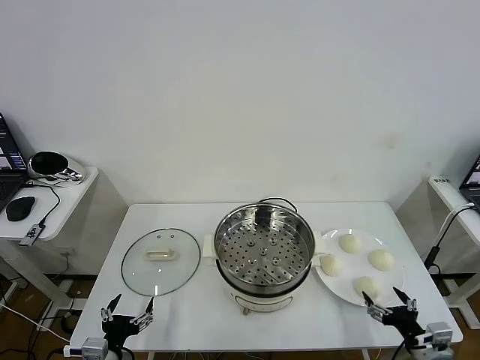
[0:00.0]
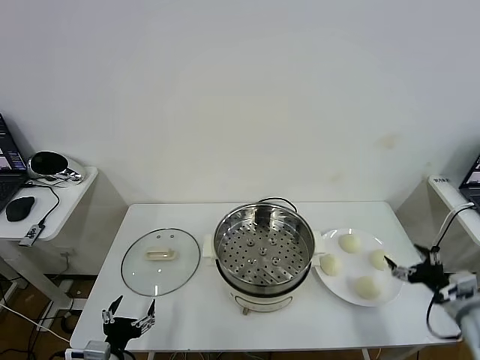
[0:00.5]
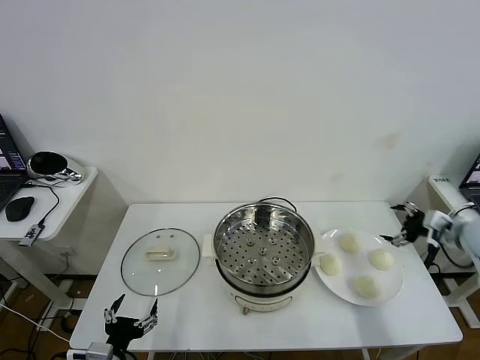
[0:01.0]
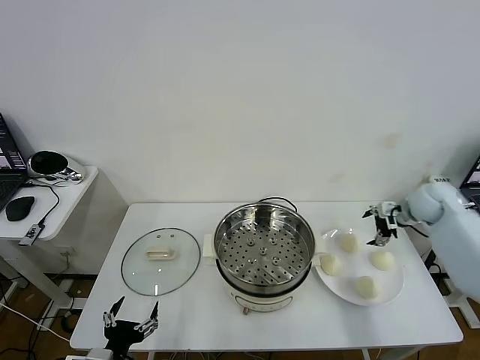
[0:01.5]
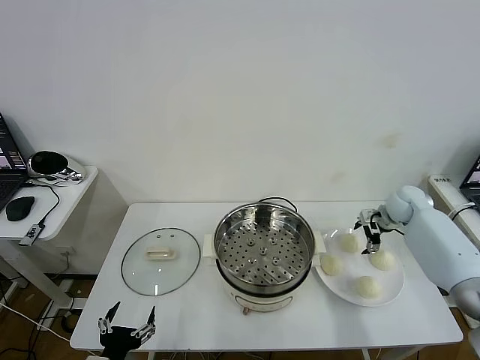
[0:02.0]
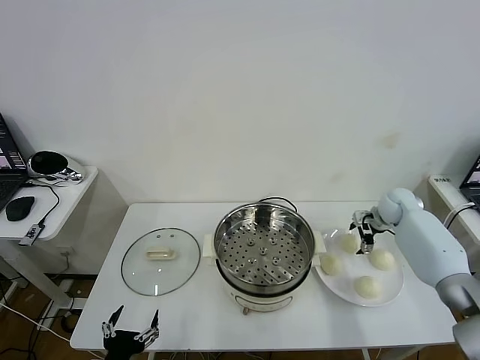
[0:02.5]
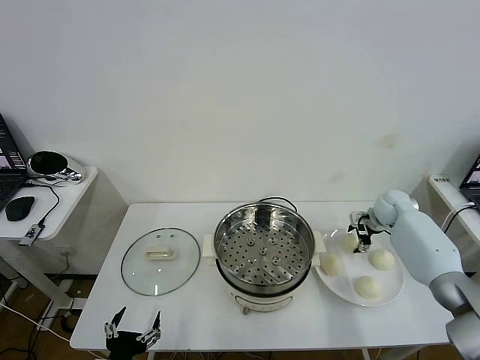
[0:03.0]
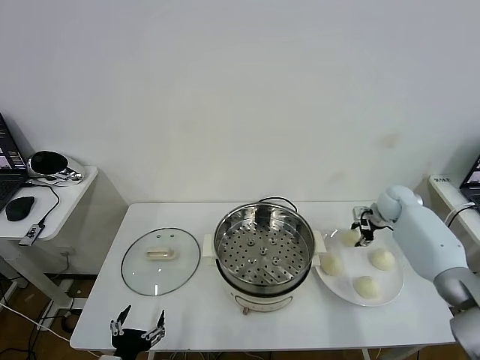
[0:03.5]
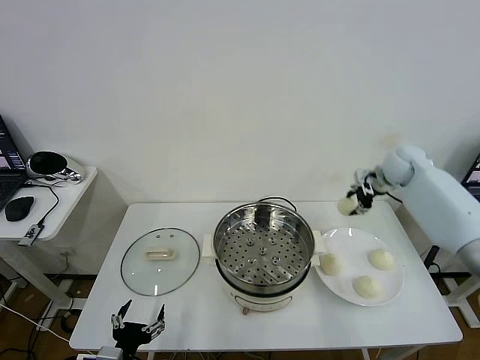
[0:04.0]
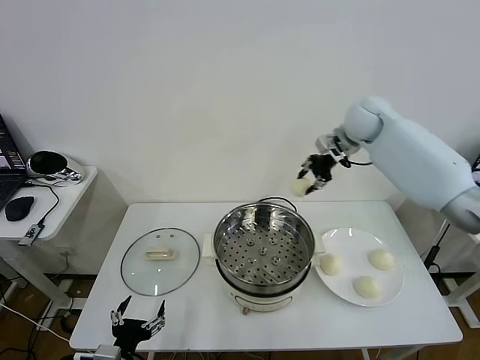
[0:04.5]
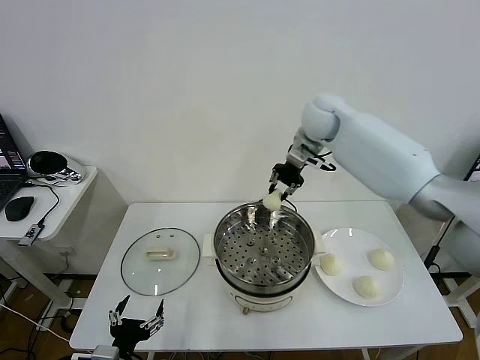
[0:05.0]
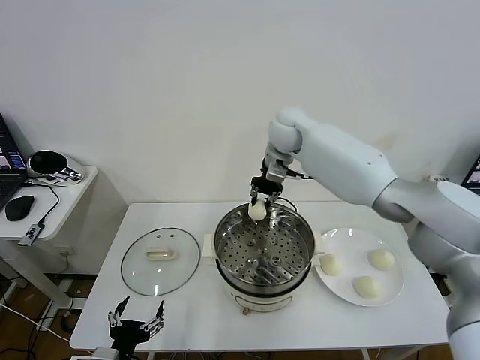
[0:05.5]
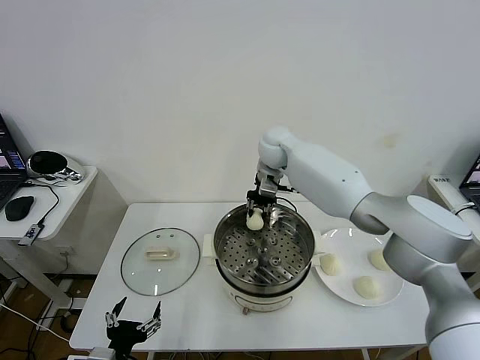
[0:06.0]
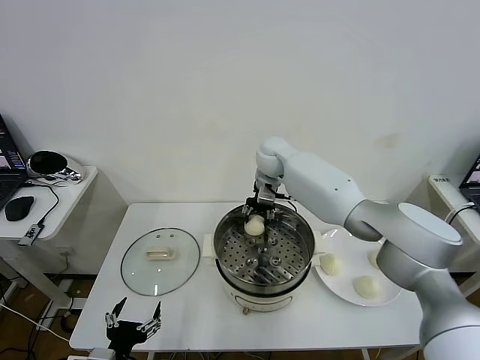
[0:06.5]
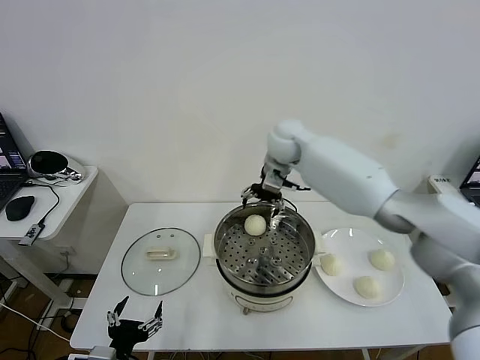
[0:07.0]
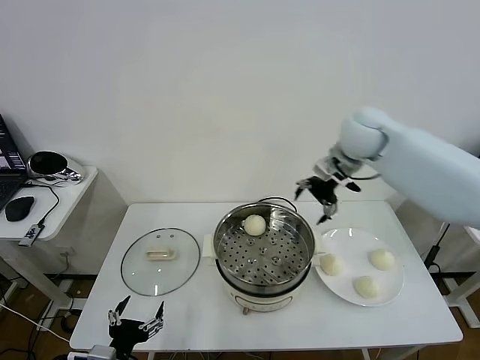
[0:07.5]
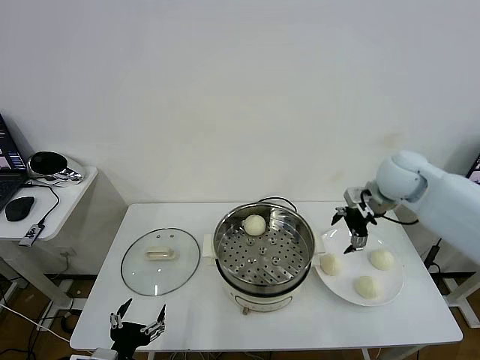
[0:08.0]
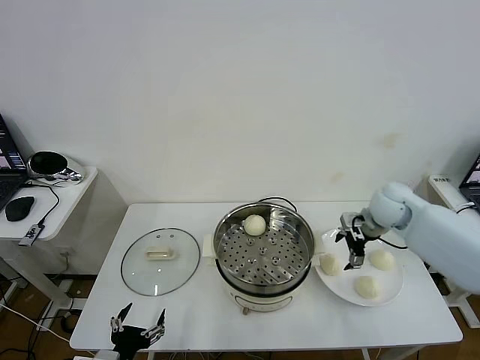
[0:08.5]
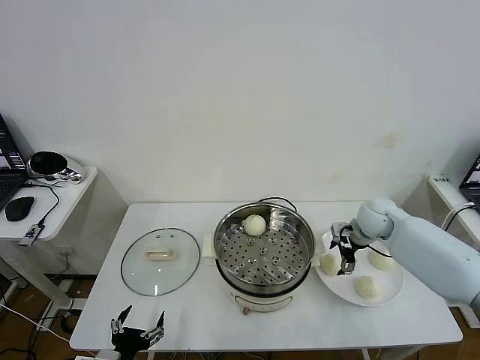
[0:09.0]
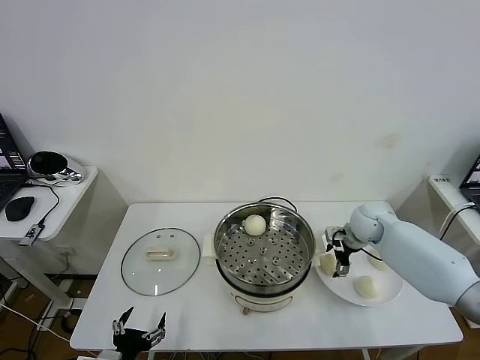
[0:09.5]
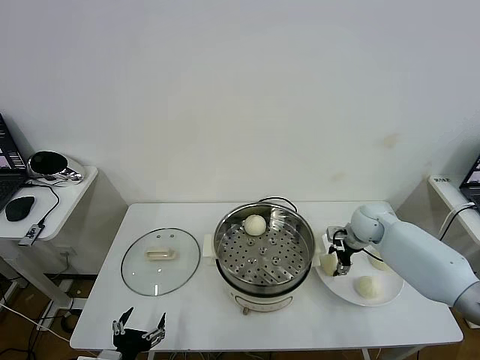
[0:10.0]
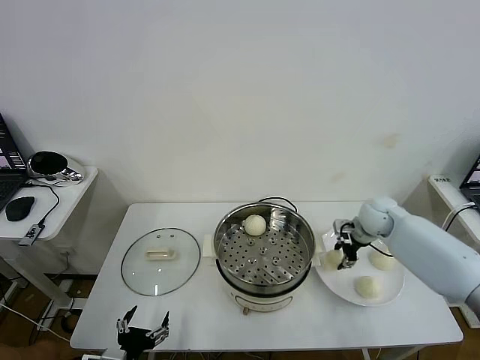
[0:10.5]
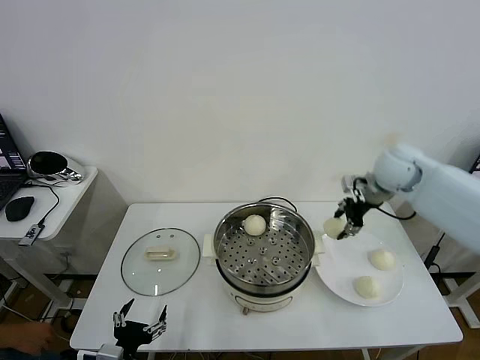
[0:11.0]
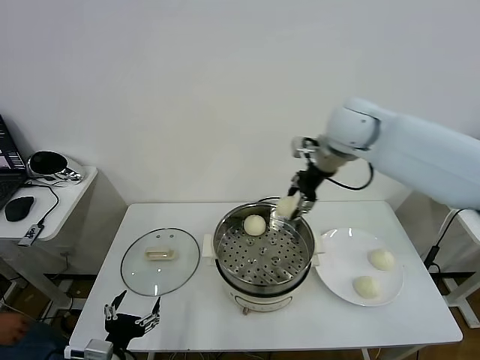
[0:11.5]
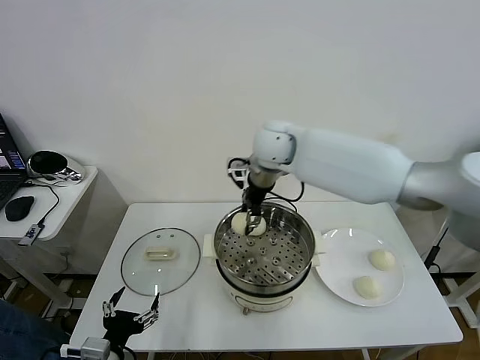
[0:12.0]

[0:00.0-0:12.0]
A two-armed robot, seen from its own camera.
Task of the whole recording: take steamed baozi put them in steamer then cover it.
Step, 0.0 to 3.0 s: Grasp the baozi in the plate with right gripper.
Step, 3.5 to 6.5 s: Place the baozi on the steamer with right gripper.
Step, 7.0 to 10.0 s: Grasp the baozi in the plate with right gripper.
2.0 to 4.0 s: The right gripper goes about 15 cm upward and to the left, and closes.
4.0 to 6.0 s: The right gripper shifts some 30 cm to the left, and closes its fingers.
6.0 to 8.0 s: The right gripper goes approximately 30 cm to the right and backward, and opens.
8.0 to 10.0 s: The right gripper travels downward by approximately 15 cm, and closes.
10.0 to 12.0 s: The right gripper heads to the left and upward, covering approximately 35 cm.

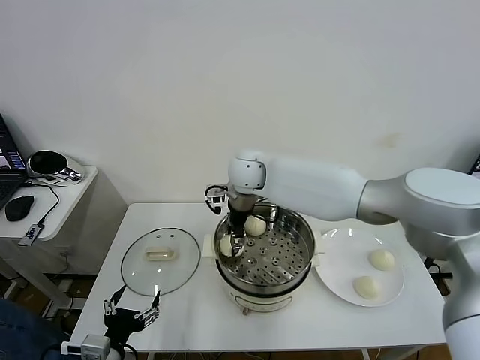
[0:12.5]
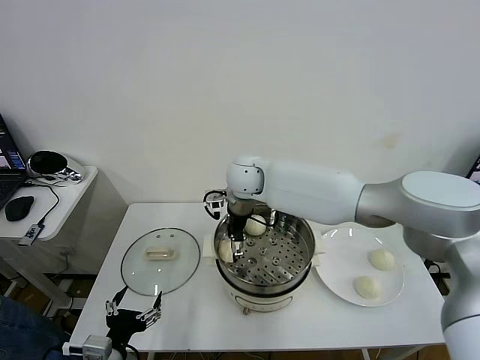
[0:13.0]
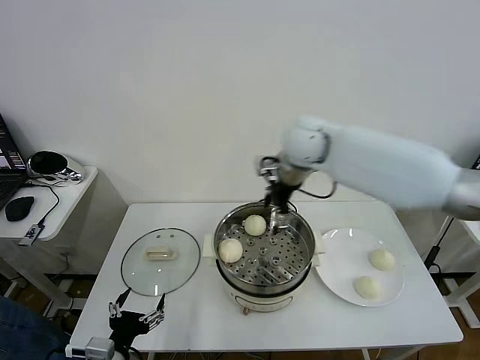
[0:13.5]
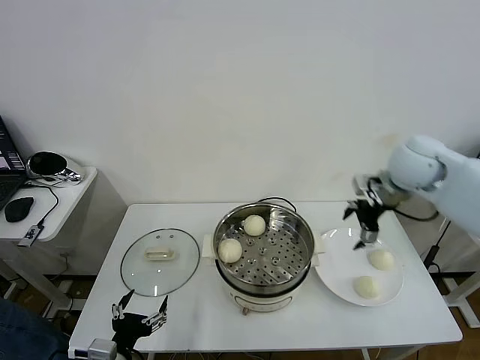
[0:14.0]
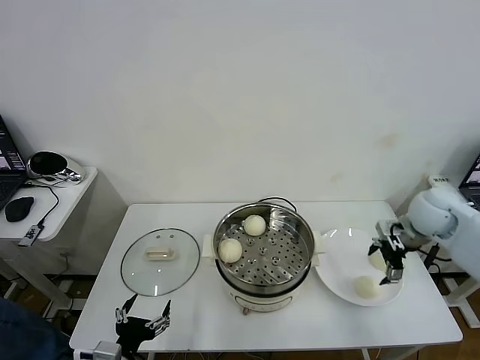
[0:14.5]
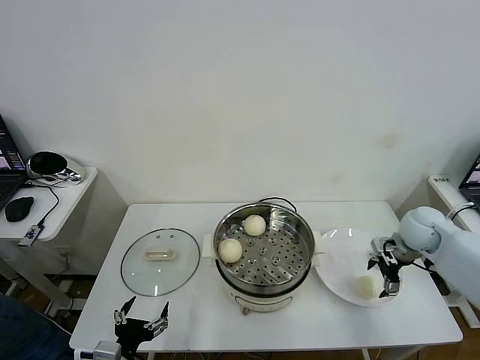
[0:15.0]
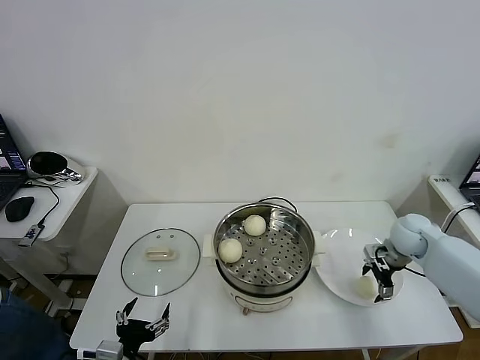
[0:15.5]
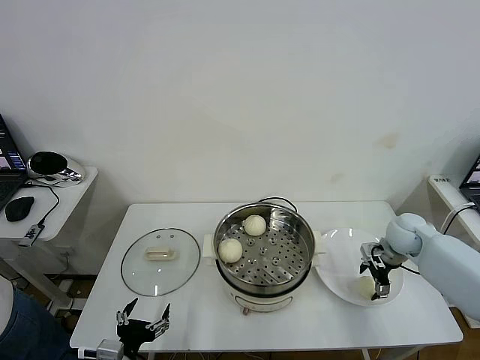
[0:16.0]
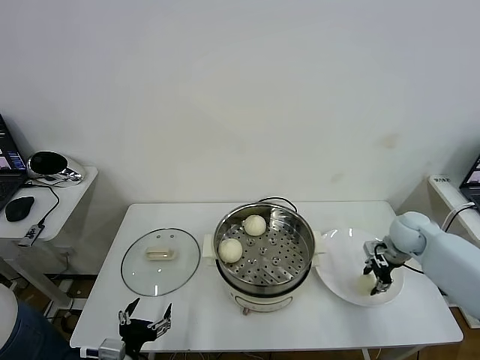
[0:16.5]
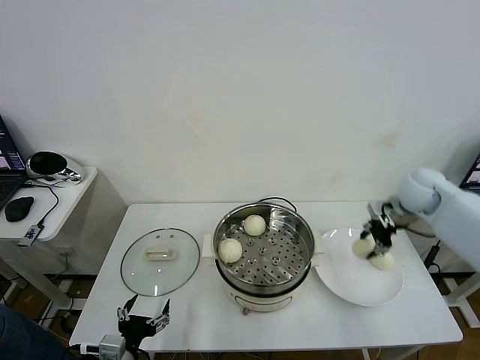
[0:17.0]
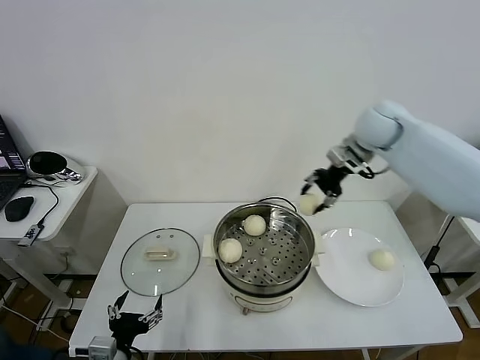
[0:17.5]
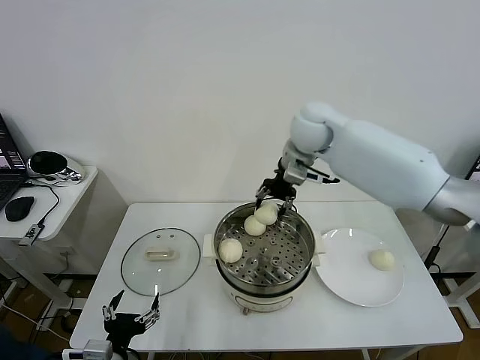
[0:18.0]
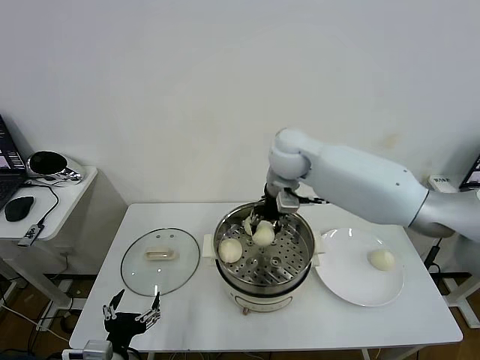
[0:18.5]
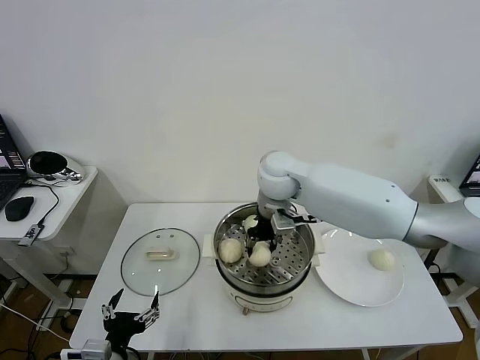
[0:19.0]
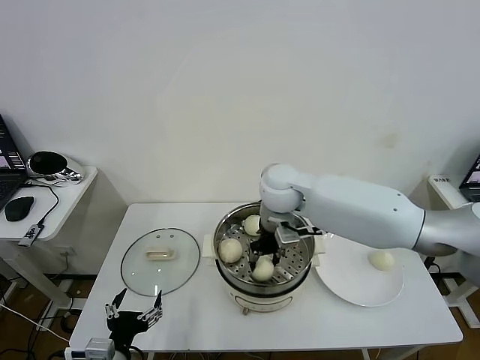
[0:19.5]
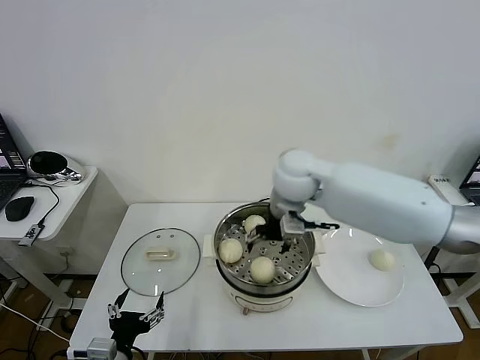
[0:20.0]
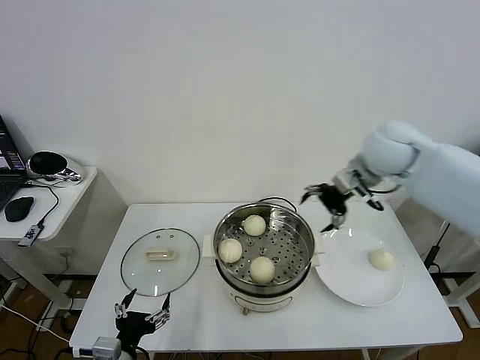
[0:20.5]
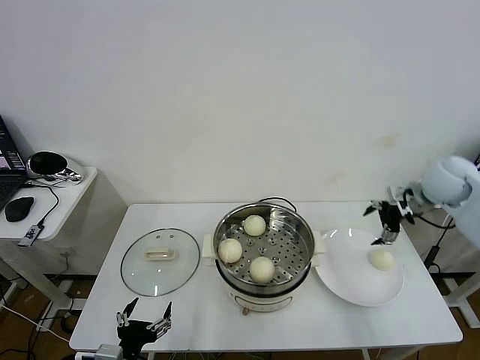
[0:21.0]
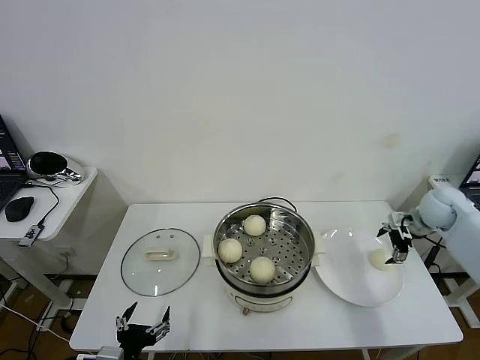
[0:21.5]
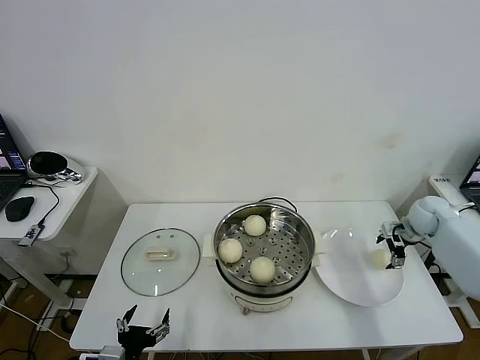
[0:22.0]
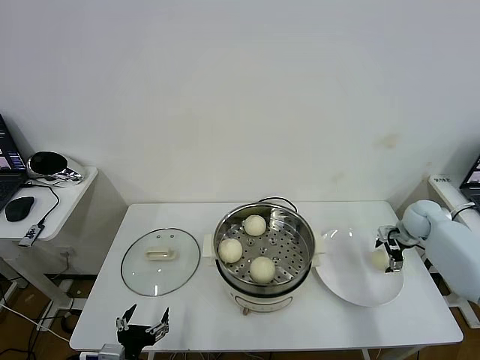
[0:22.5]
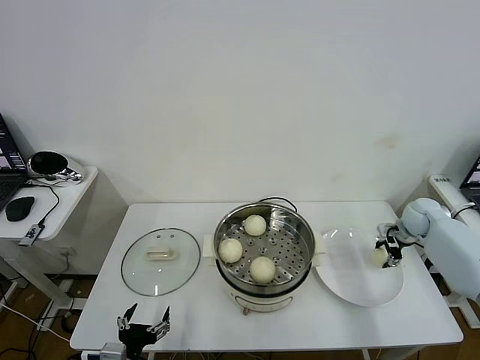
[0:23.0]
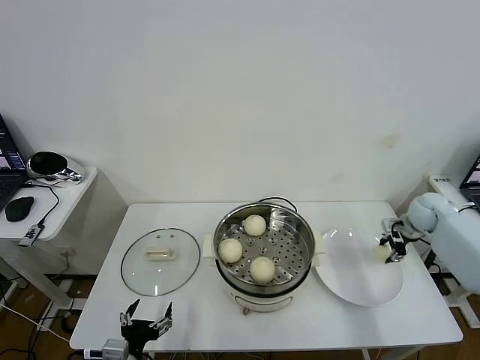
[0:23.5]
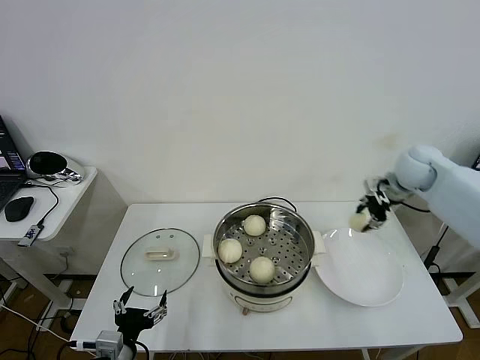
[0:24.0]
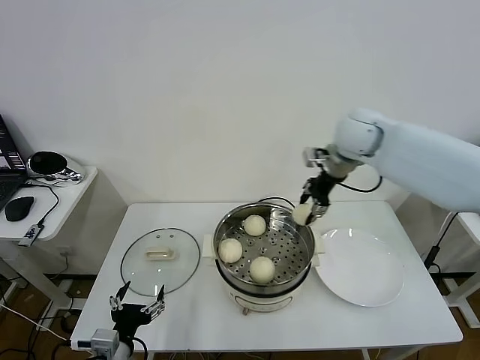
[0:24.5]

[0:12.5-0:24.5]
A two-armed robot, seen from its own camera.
Task of the whole recording: take steamed baozi put them in steamer then cover it.
Step, 13.5 to 16.0 s: Grasp the baozi in the plate with right gripper.
Step, 16.5 to 19.5 s: Place the baozi on the steamer with right gripper.
Step, 20.0 to 23.0 s: Grasp the baozi in the plate with right gripper.
12.5 to 14.5 s: The right gripper goes some 40 cm to the right, and opens up.
14.5 to 16.5 s: The right gripper moves downward, roughly 10 cm, and closes its fingers.
16.5 to 18.5 s: The right gripper is displaced to the left and upward by some 35 cm.
18.5 to 20.5 s: The right gripper heads to the right, covering approximately 20 cm, and opens up.
20.5 to 22.5 s: The right gripper moves downward and to the right, some 30 cm.
22.5 to 24.5 s: The right gripper goes some 35 cm to the left and upward, and closes.

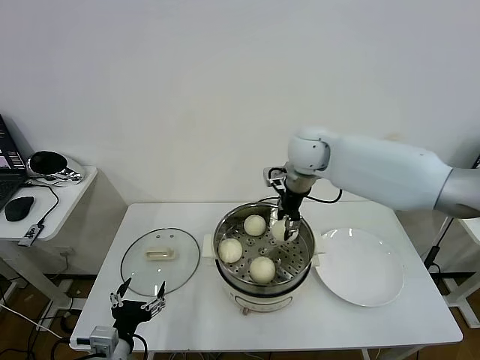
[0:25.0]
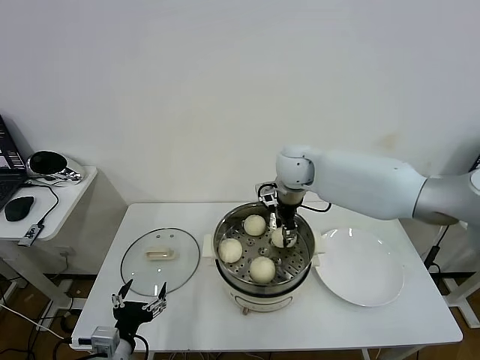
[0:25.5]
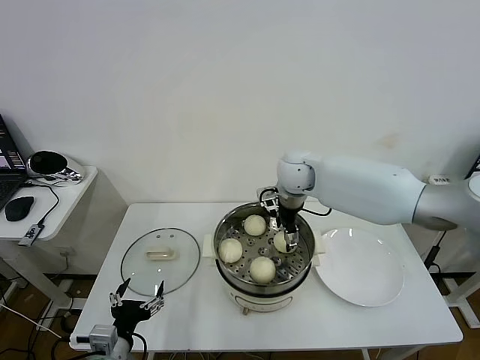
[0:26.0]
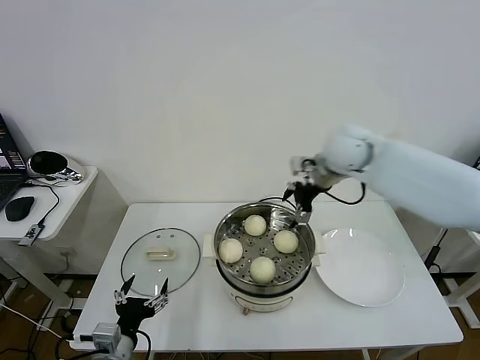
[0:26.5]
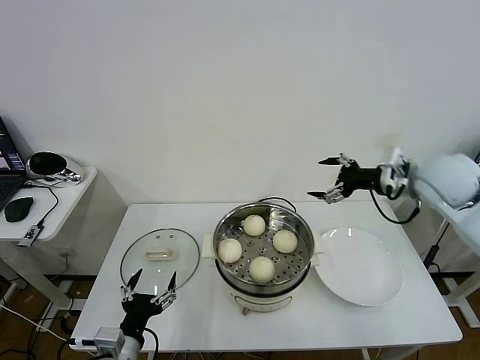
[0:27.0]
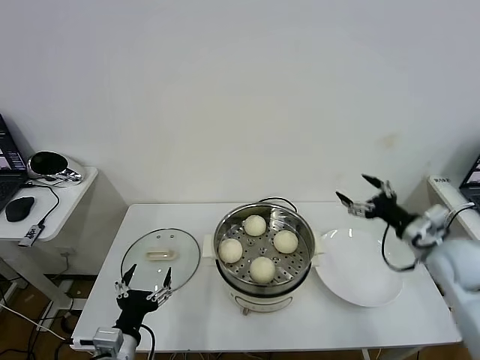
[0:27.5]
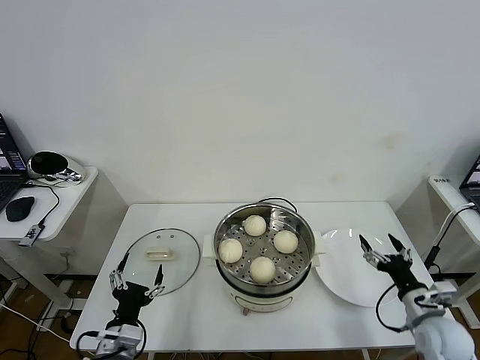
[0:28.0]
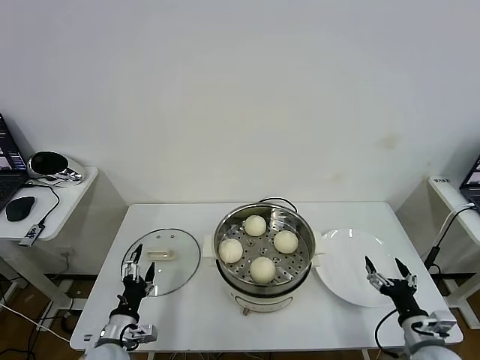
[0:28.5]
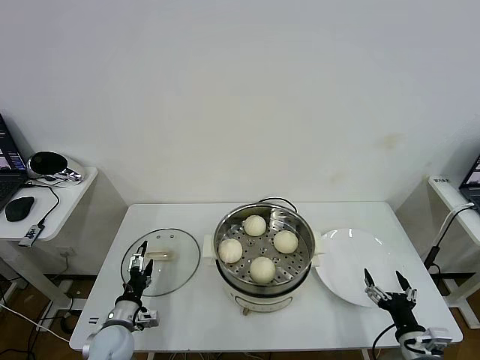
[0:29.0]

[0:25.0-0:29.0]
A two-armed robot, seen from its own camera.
Task of the whole recording: take steamed baozi put them in steamer then cover it.
25.0 to 27.0 s: The right gripper shifts some 25 cm to the right and backward, and opens.
27.0 to 29.0 s: The right gripper heads downward and backward, covering some 40 cm. Meanwhile the left gripper shifts about 20 cm downward, forward and to the left.
